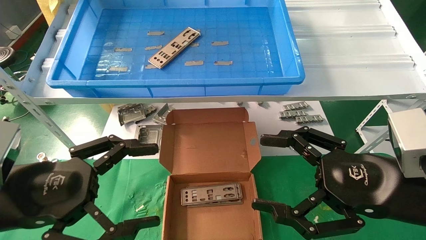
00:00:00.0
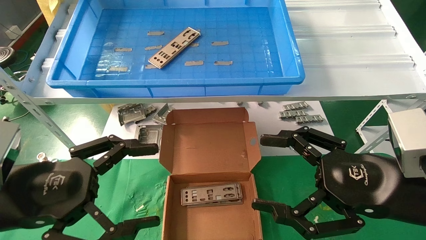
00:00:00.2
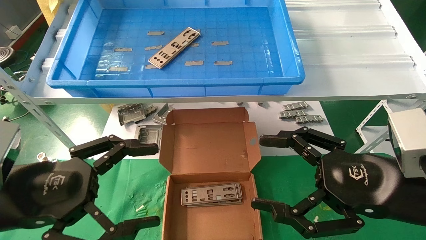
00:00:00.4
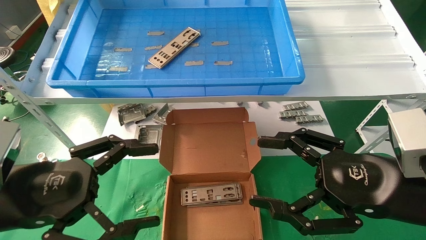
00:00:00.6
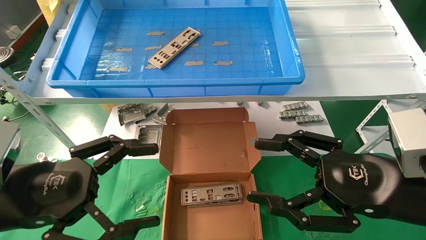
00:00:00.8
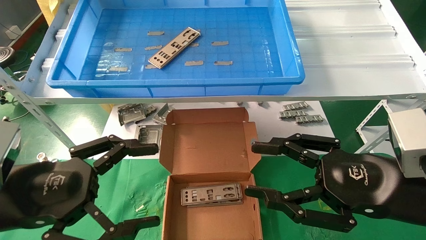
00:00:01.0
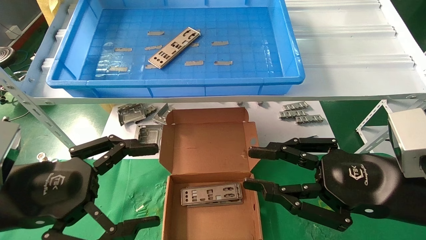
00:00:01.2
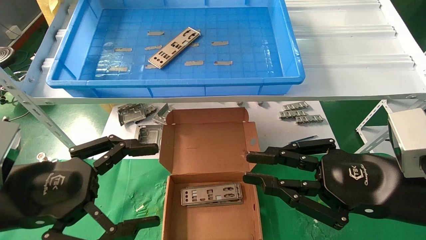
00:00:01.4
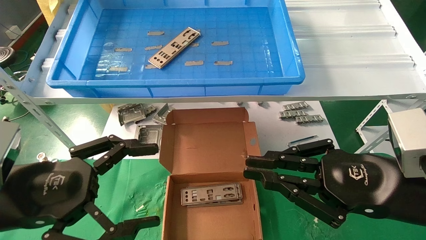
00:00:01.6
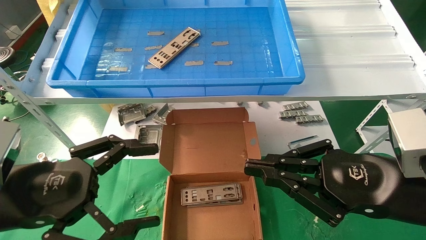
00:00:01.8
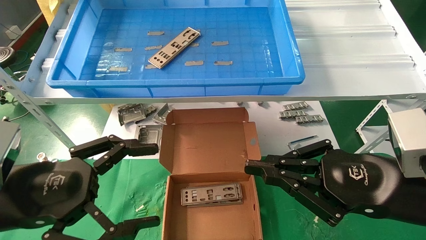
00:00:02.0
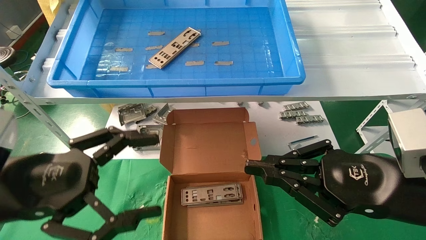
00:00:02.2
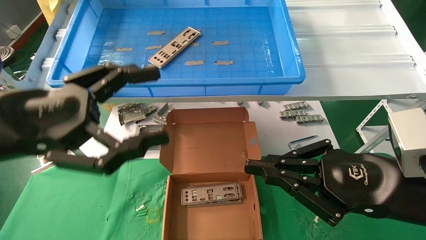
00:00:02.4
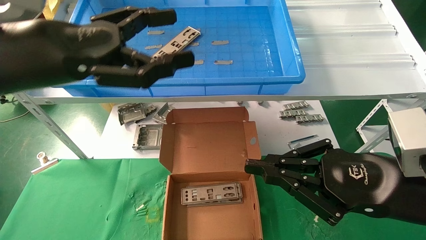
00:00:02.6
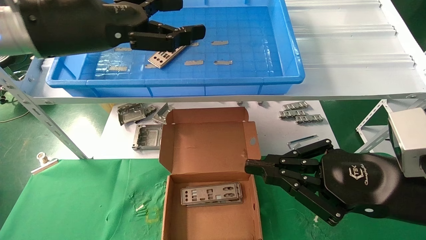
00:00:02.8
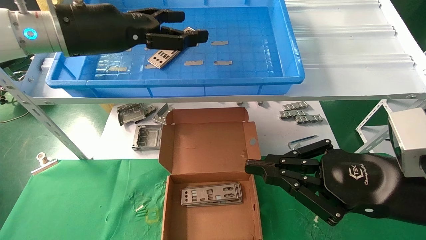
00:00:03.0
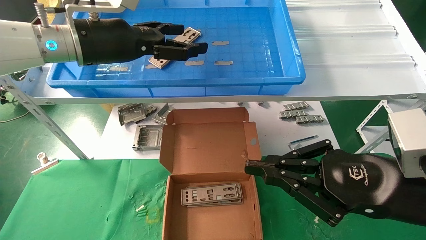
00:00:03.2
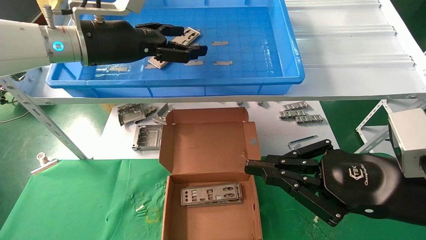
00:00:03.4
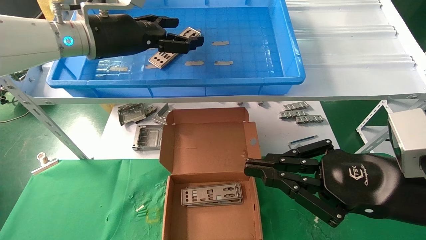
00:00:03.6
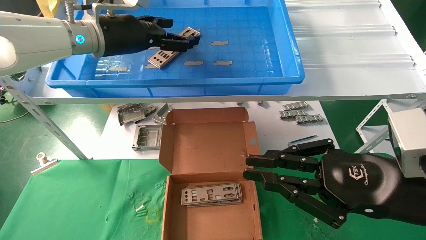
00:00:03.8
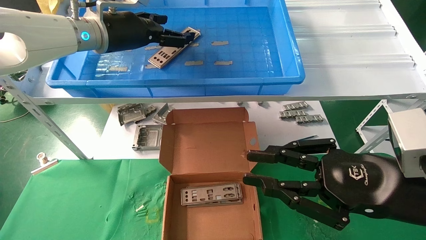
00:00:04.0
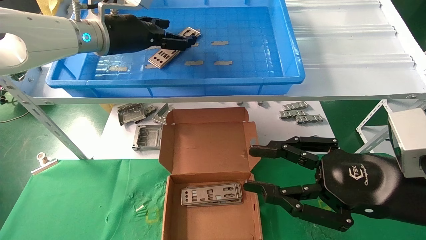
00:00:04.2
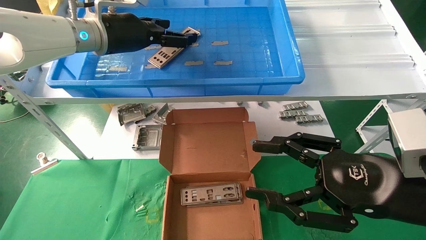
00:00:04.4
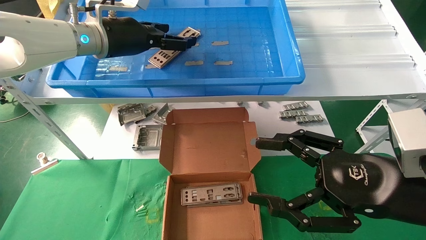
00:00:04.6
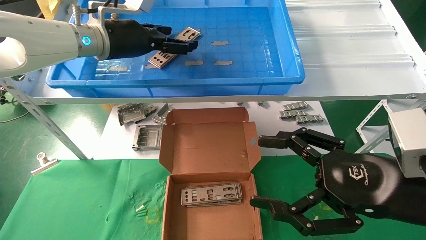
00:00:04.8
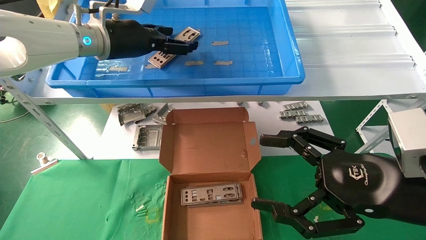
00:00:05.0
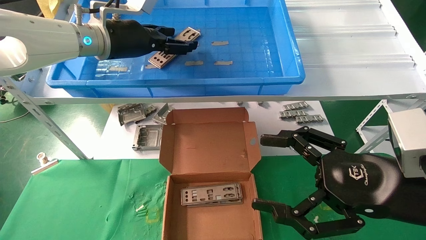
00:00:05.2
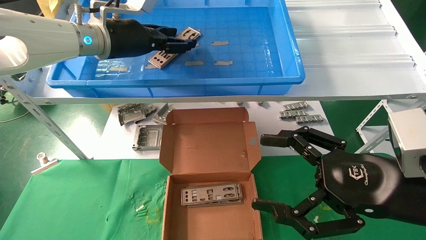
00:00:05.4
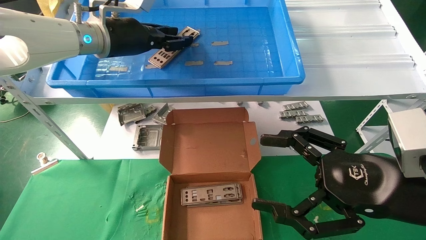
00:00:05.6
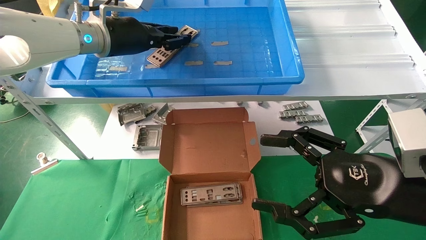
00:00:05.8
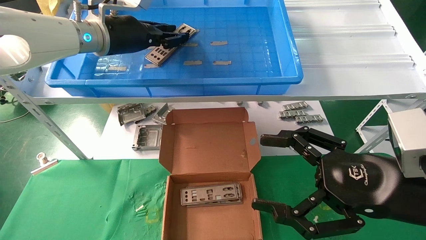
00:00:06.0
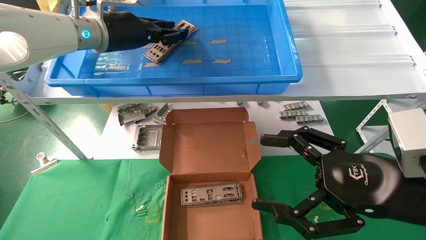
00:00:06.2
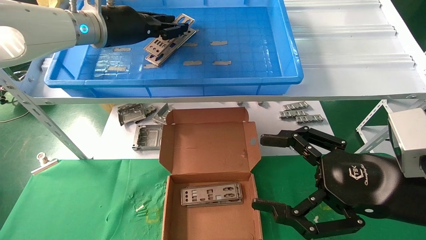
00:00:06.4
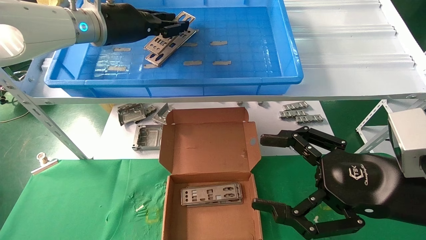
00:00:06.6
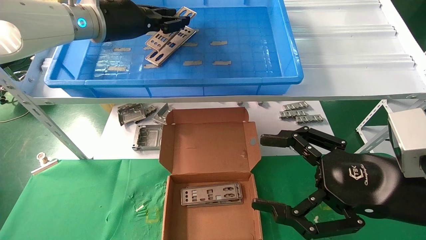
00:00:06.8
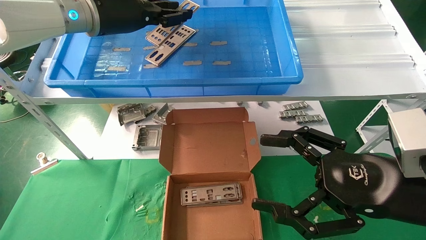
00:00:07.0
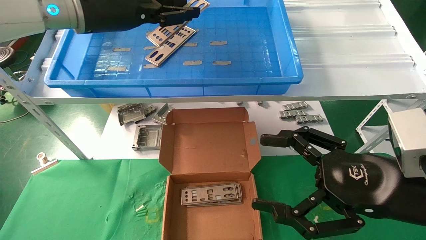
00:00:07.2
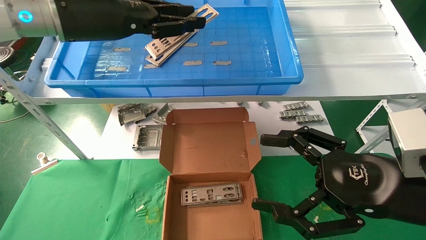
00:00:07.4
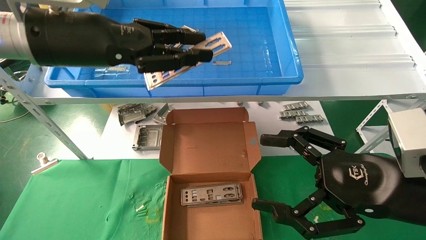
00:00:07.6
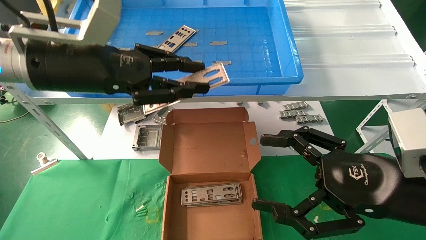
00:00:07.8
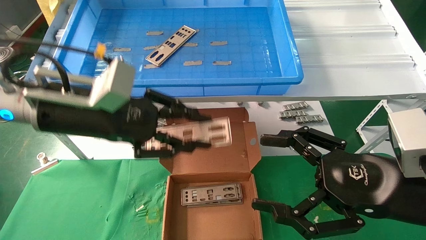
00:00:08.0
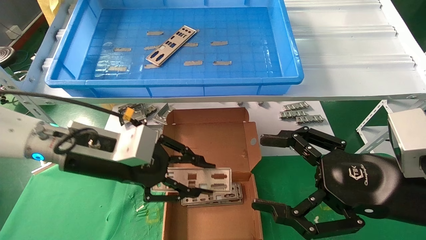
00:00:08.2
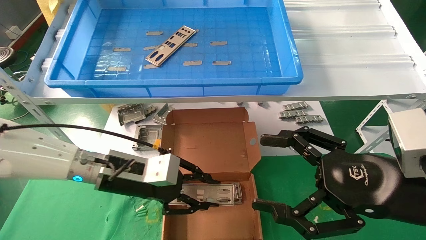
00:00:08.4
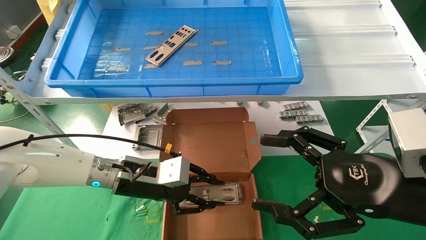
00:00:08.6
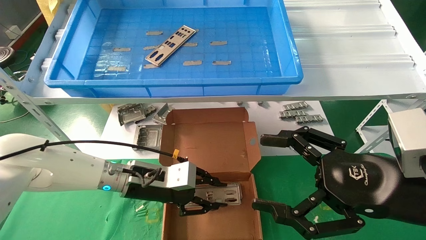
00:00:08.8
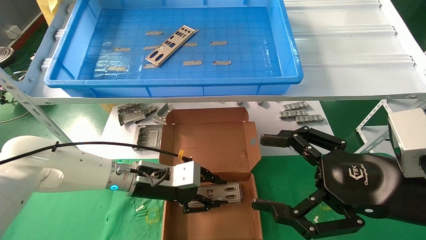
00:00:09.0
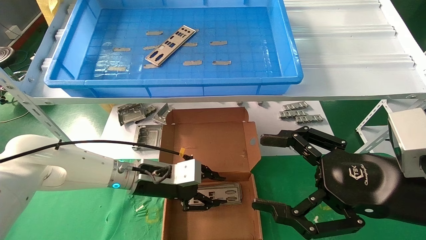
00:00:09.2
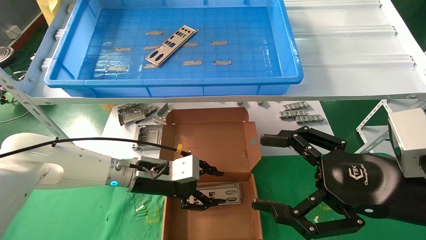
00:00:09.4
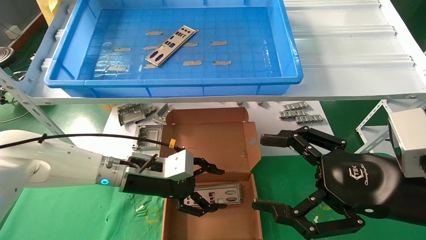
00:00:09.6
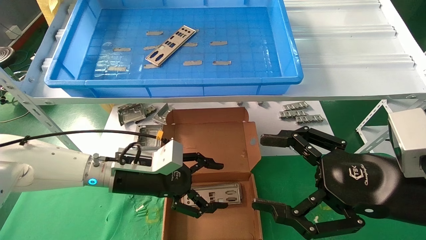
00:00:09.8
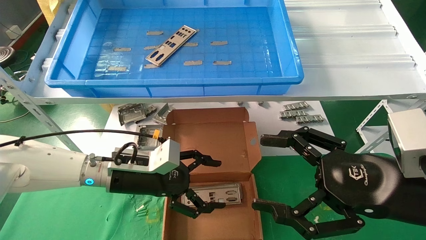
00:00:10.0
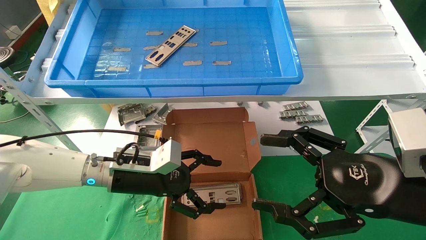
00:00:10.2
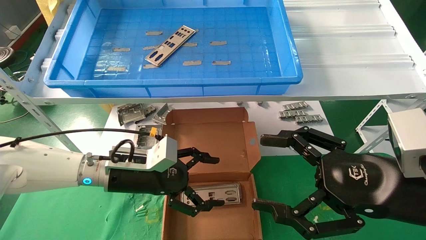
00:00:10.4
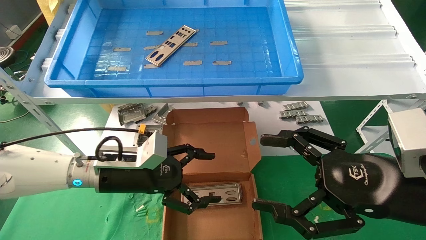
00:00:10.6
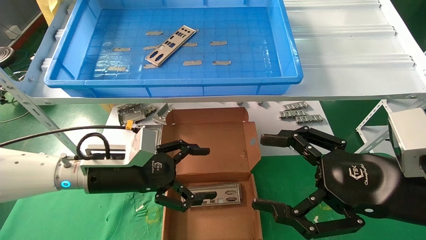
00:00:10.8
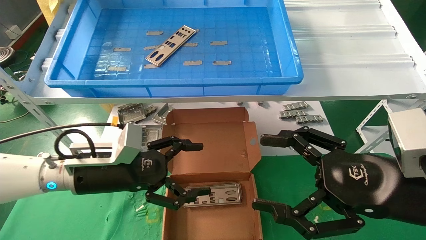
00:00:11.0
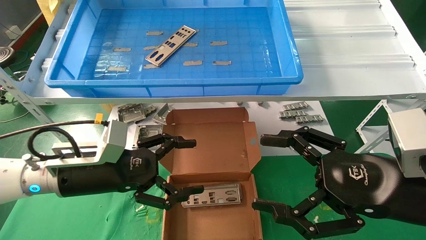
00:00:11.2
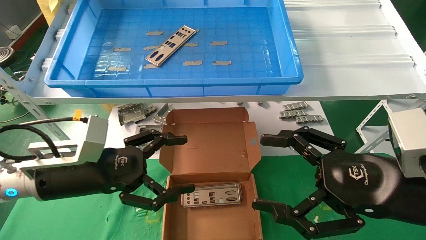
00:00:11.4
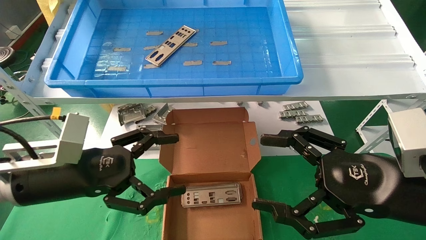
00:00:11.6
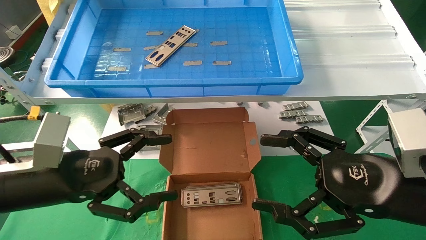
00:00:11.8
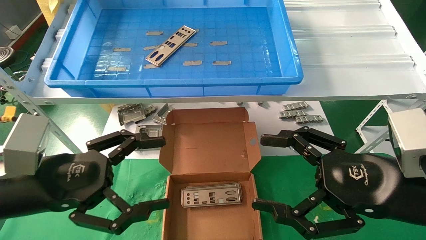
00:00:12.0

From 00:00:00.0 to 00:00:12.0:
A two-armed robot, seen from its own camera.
Task of the whole recording: pick up the parts on the tray and put them in the cardboard box.
Step, from 00:00:02.4 to 00:00:05.8: Pick up the IO bracket from the container box.
Step, from 00:00:06.0 to 00:00:09.4: Place the IO bracket into the ingredient slot.
From 00:00:00.0 to 00:00:01.6: The right gripper closes.
From 00:00:01.6 to 00:00:03.0: The left gripper moves upward and forward, about 25 cm.
From 00:00:03.0 to 00:00:04.4: The right gripper opens its fingers; the left gripper goes approximately 10 cm forward.
From 00:00:04.4 to 00:00:06.0: The right gripper opens up. The left gripper closes.
From 00:00:06.0 to 00:00:07.6: The left gripper goes approximately 10 cm backward.
From 00:00:07.6 to 00:00:09.0: The left gripper travels downward by roughly 25 cm.
From 00:00:09.0 to 00:00:10.4: The left gripper changes place by roughly 5 cm, and opens up.
From 00:00:10.4 to 00:00:12.0: The left gripper is displaced backward, to the left and upward by some 20 cm.

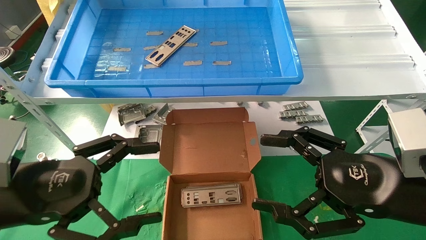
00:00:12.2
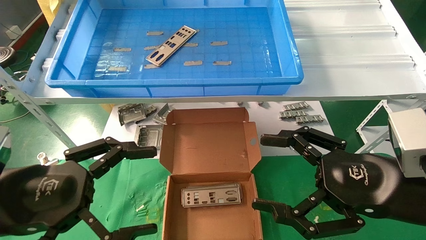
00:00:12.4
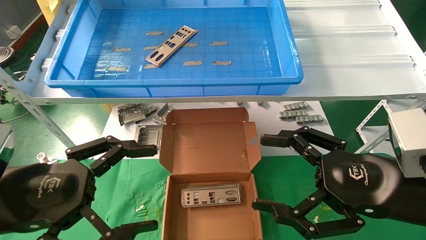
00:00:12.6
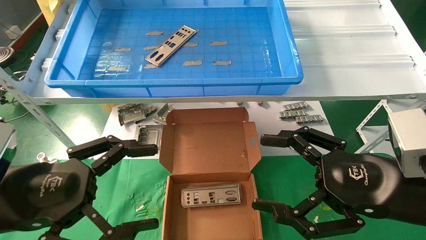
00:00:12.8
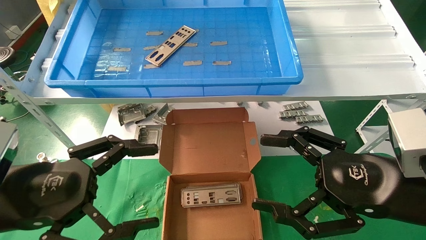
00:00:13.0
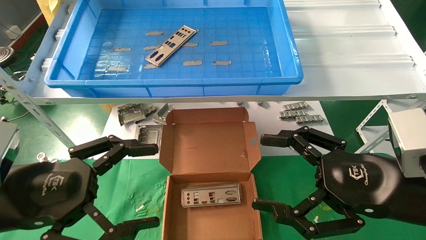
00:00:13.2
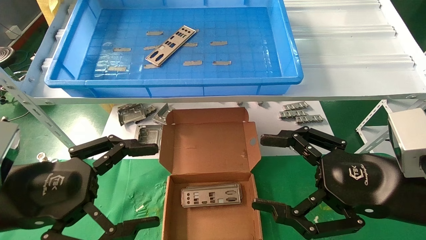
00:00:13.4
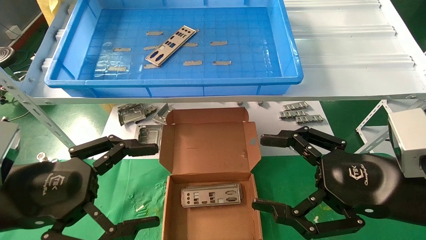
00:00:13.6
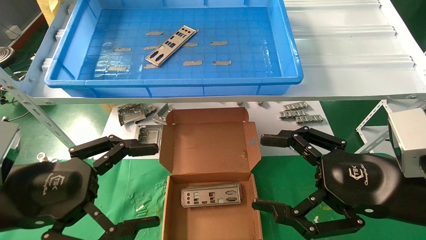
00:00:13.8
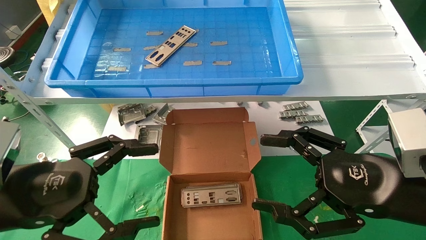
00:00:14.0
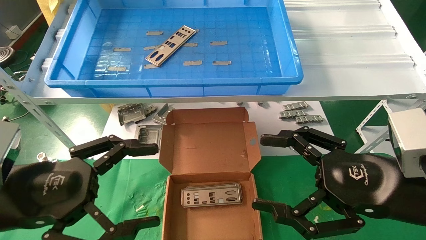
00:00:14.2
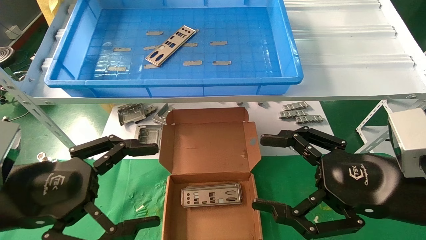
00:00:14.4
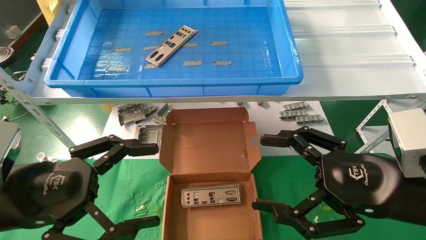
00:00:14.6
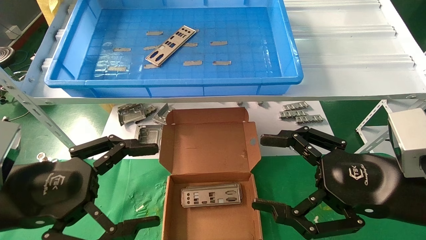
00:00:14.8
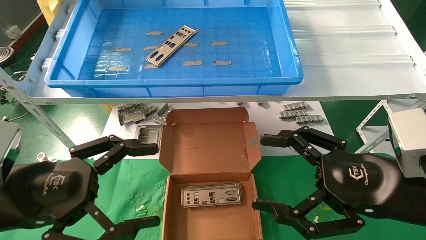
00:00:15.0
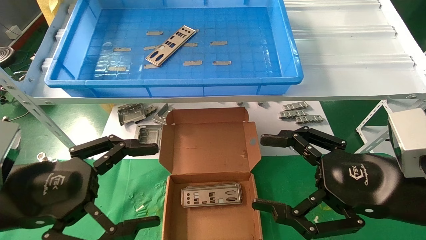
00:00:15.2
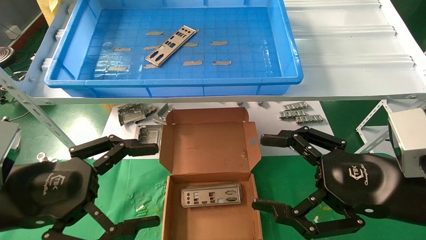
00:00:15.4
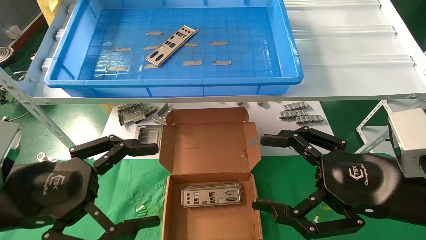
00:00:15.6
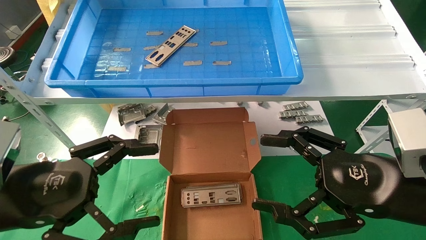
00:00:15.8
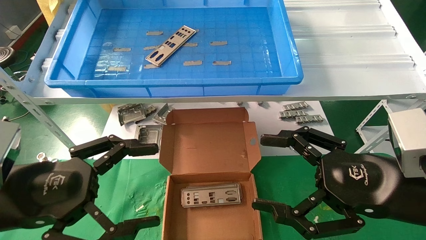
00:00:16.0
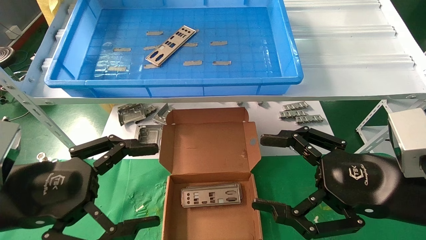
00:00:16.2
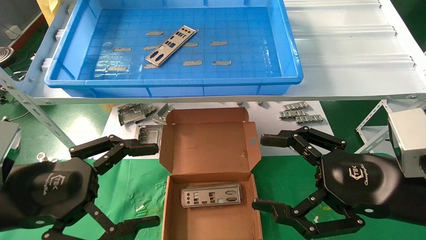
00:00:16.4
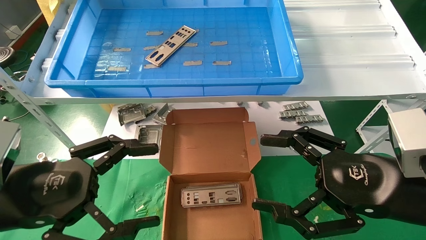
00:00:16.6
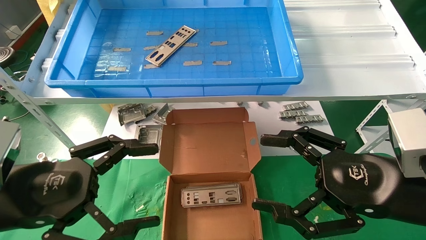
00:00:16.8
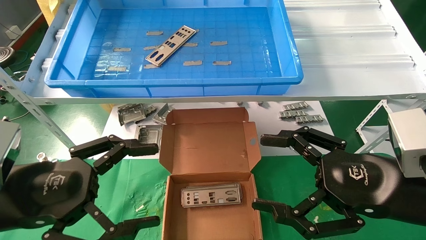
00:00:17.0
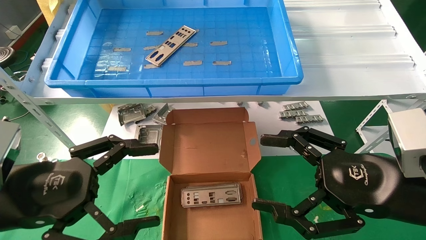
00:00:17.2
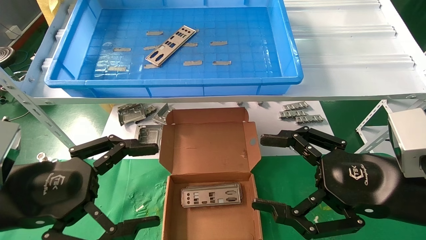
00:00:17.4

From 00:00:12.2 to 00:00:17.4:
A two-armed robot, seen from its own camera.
Task of the whole recording: pick up the parts on the tray and put them in the cardboard box.
From 00:00:12.2 to 00:00:14.0: There are only small adjustments of the grippers.
From 00:00:14.0 to 00:00:17.4: Neither gripper changes place.
